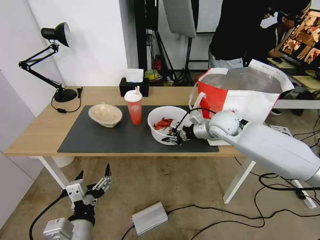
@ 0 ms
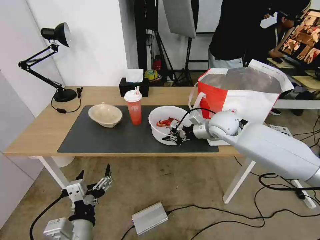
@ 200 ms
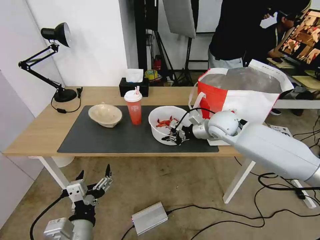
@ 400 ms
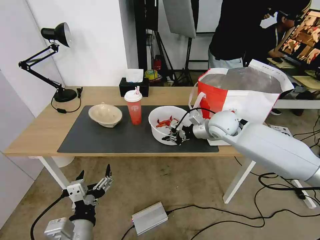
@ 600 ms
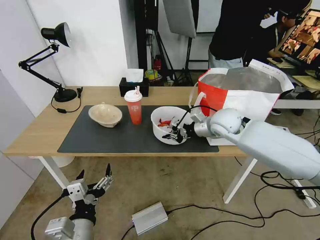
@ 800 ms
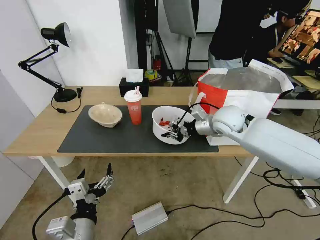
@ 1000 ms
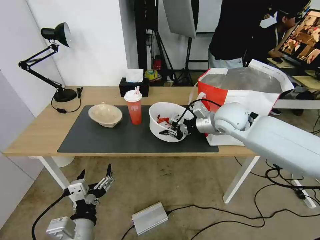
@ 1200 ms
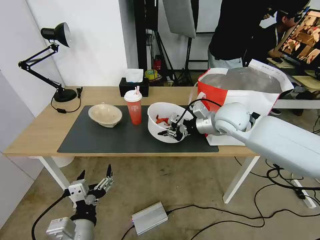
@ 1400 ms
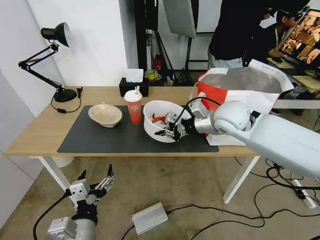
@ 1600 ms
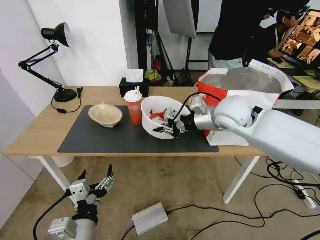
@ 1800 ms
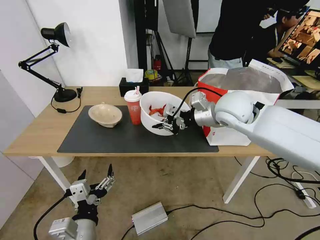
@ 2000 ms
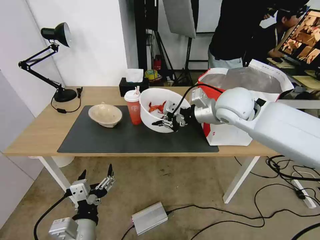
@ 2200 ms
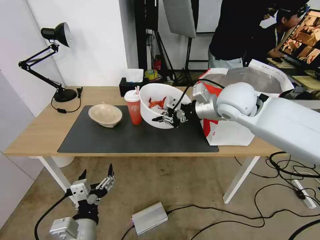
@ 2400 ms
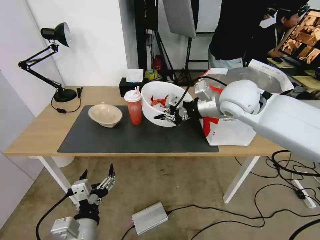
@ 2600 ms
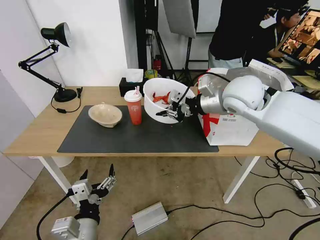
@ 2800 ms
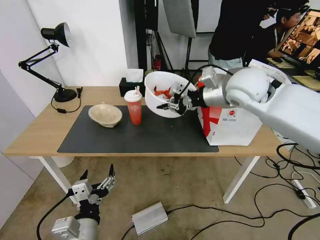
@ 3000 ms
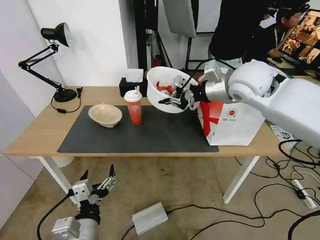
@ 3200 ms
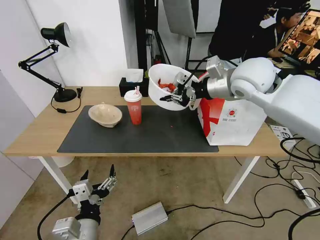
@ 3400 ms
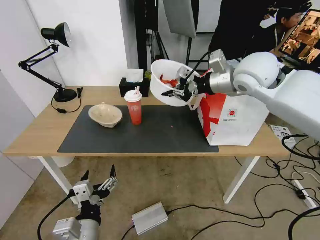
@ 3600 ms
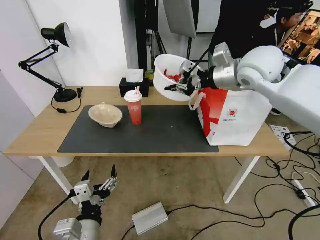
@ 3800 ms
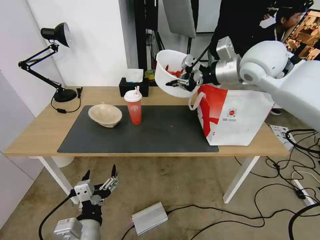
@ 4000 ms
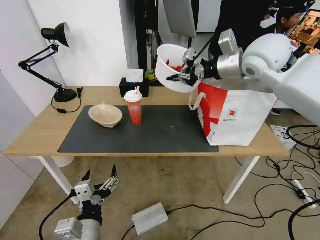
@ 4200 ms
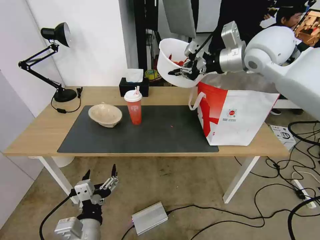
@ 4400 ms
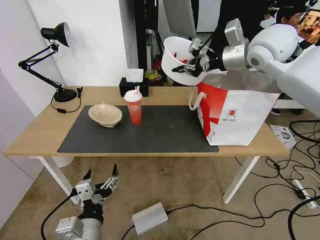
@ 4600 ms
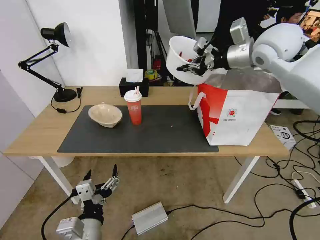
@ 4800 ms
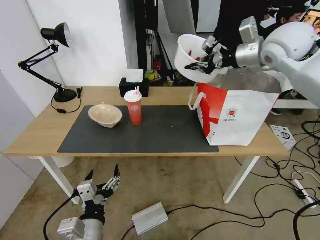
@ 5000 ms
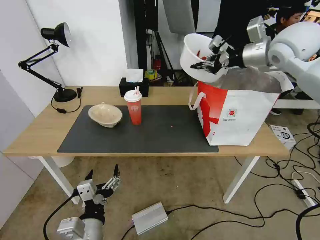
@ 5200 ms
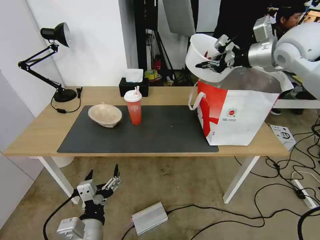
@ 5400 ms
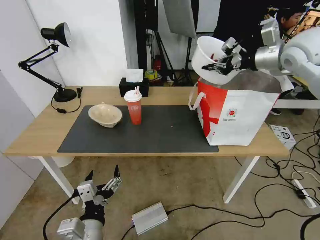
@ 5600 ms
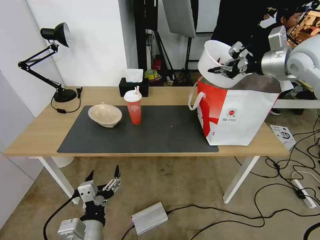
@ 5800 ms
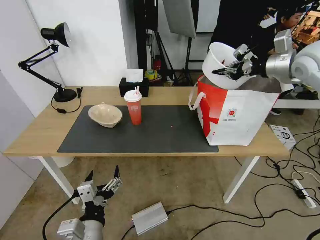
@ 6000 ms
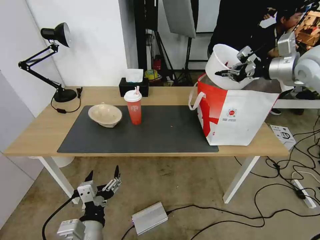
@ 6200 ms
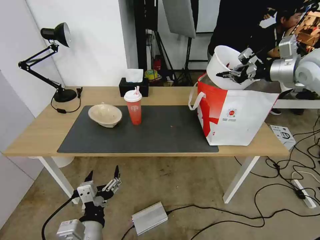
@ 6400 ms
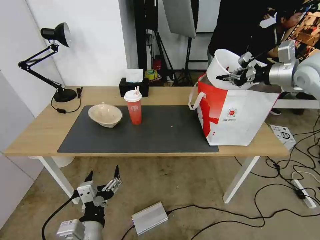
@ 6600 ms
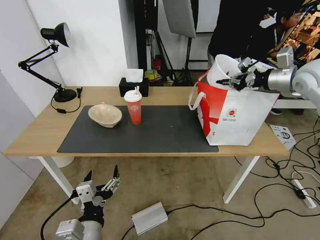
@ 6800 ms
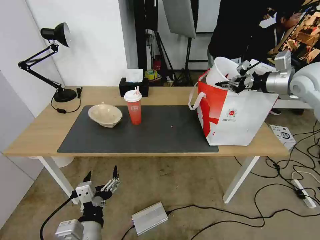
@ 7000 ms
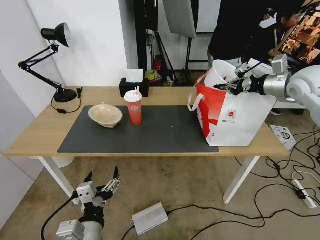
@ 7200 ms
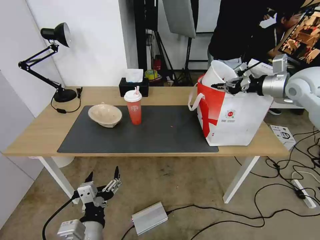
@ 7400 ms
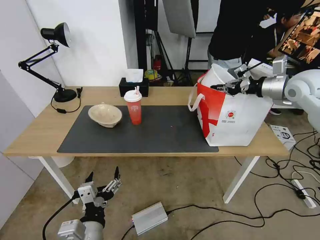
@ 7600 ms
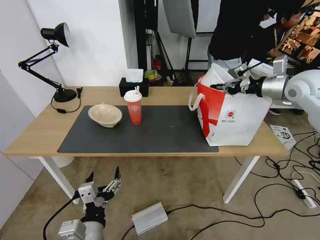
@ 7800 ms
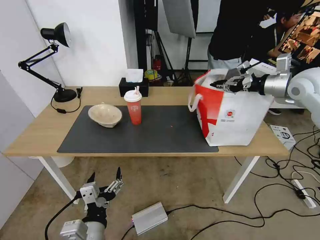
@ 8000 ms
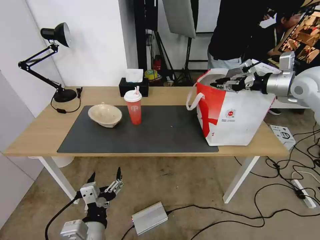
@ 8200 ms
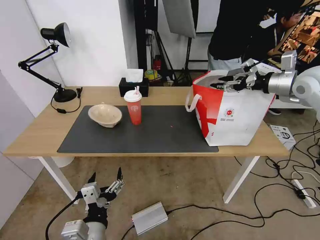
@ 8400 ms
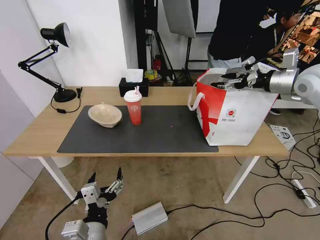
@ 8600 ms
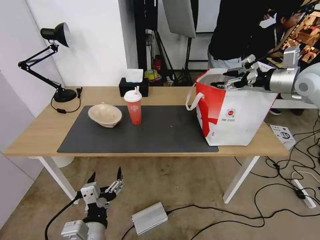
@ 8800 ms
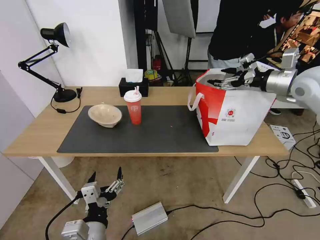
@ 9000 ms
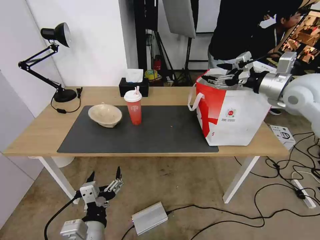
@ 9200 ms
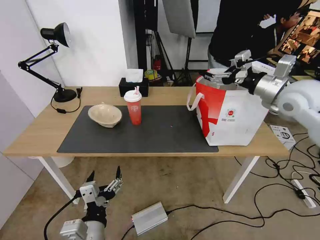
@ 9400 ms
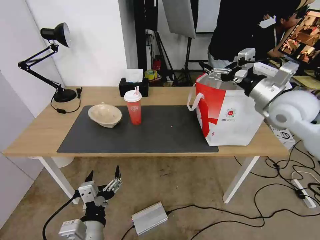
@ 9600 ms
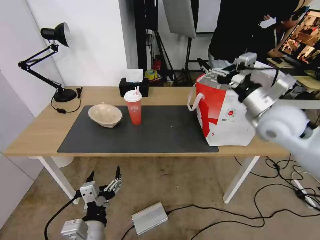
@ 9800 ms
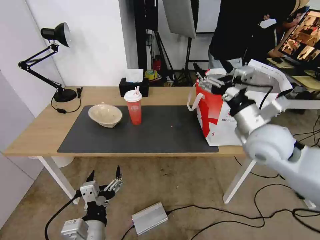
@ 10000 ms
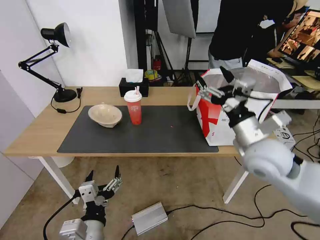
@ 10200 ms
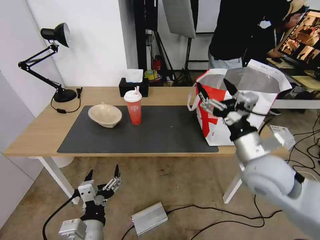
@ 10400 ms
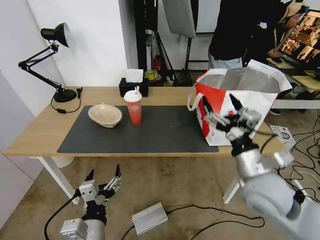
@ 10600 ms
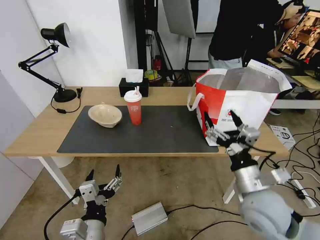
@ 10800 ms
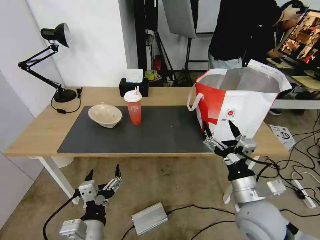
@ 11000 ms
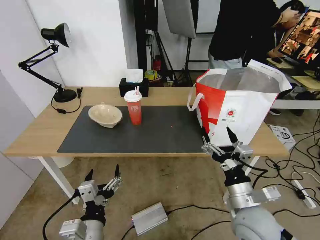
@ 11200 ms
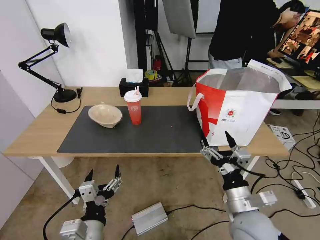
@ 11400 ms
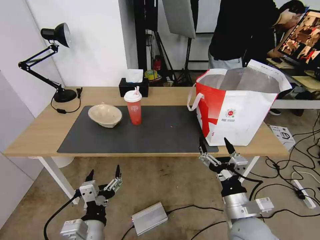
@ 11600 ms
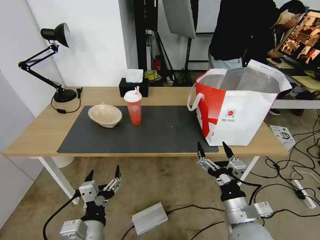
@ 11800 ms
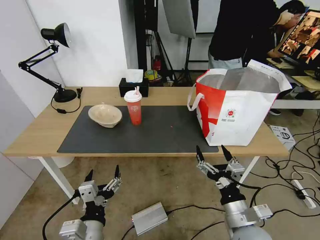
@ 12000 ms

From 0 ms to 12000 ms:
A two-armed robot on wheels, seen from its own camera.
Task of the whole recording: Pick up the trash from the table and place it into the takeout bag.
From 0 ms to 1600 ms: The right gripper moves upward, approximately 5 cm.
From 1600 ms to 3000 ms: The right gripper shifts about 10 cm upward.
From 3000 ms to 4400 ms: The right gripper is displaced upward by approximately 10 cm.
From 4400 ms to 6000 ms: The right gripper moves to the right, approximately 15 cm.
From 6000 ms to 7600 ms: The right gripper goes roughly 5 cm downward.
From 7600 ms to 9000 ms: The right gripper opens its fingers.
From 9000 ms to 10400 ms: The right gripper moves backward, to the left and downward, approximately 30 cm.
From 10400 ms to 12000 ms: The right gripper is displaced downward and backward by approximately 20 cm.

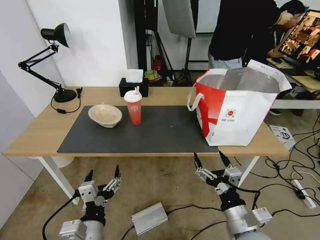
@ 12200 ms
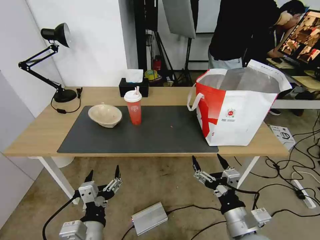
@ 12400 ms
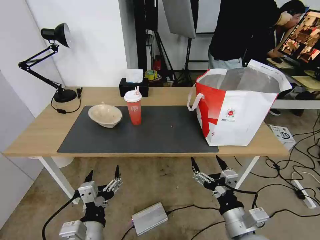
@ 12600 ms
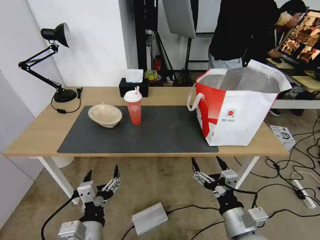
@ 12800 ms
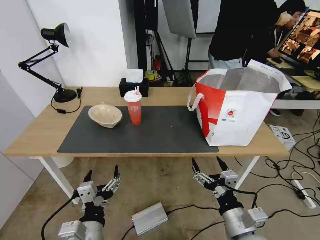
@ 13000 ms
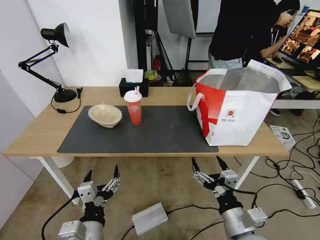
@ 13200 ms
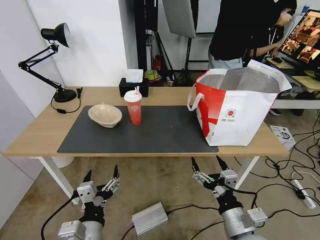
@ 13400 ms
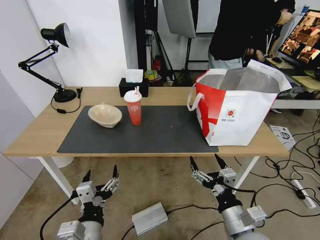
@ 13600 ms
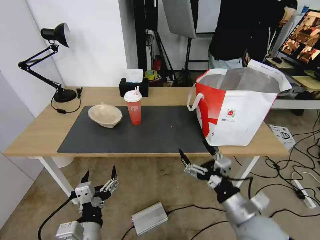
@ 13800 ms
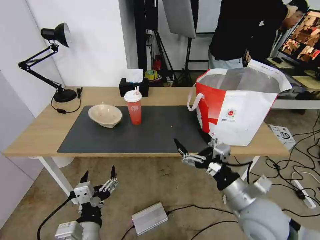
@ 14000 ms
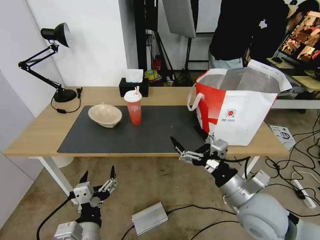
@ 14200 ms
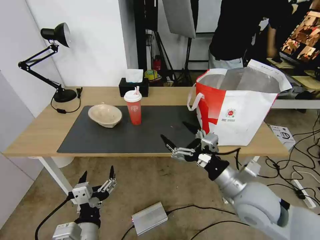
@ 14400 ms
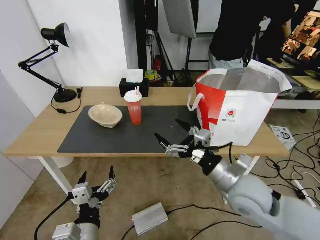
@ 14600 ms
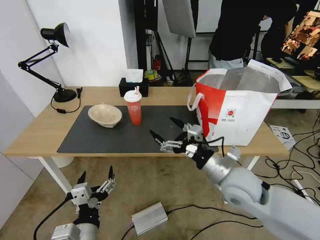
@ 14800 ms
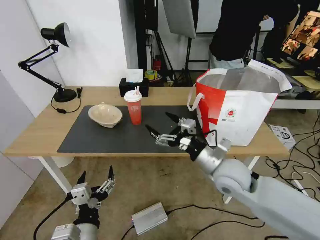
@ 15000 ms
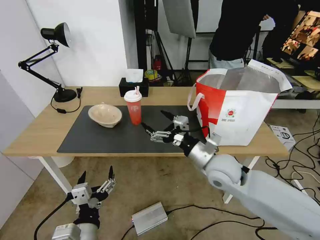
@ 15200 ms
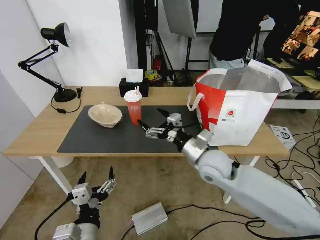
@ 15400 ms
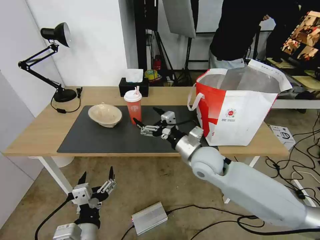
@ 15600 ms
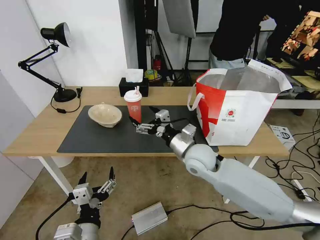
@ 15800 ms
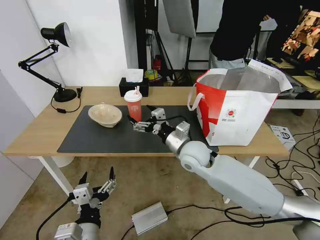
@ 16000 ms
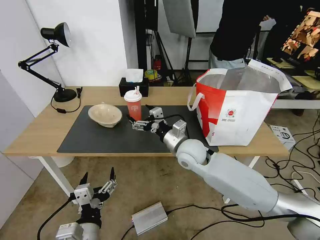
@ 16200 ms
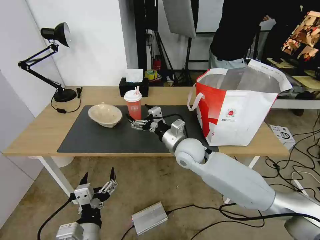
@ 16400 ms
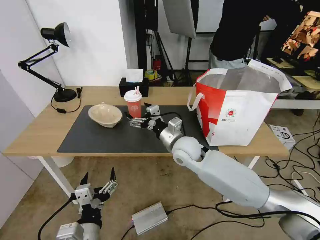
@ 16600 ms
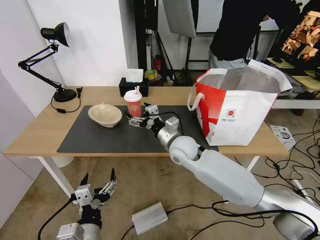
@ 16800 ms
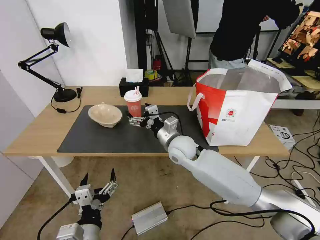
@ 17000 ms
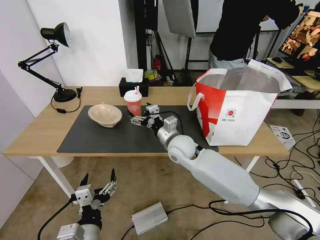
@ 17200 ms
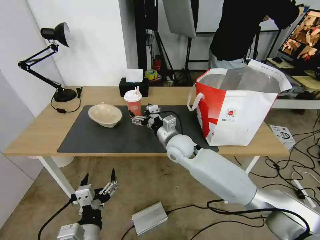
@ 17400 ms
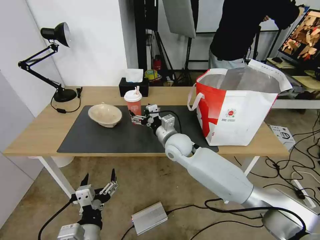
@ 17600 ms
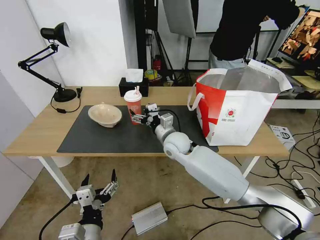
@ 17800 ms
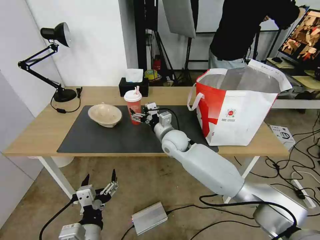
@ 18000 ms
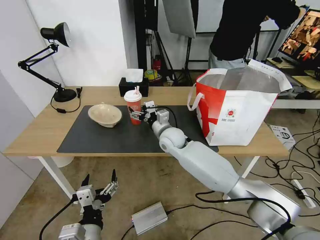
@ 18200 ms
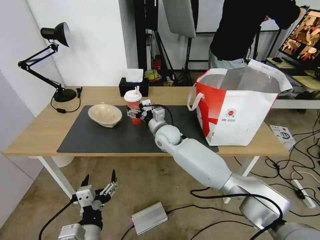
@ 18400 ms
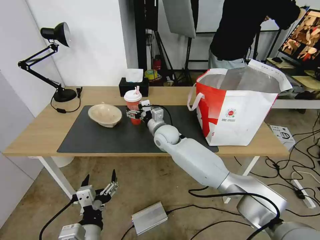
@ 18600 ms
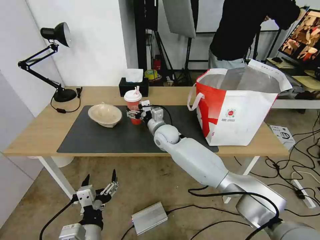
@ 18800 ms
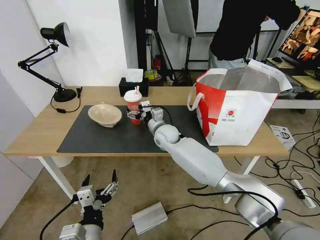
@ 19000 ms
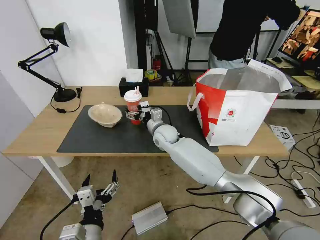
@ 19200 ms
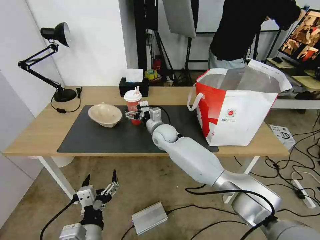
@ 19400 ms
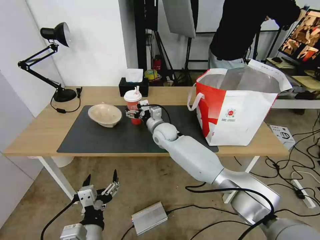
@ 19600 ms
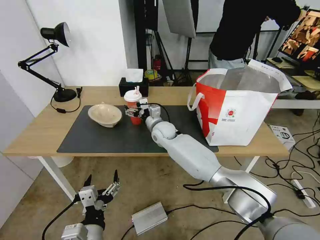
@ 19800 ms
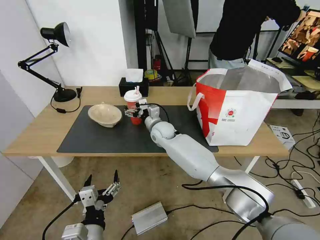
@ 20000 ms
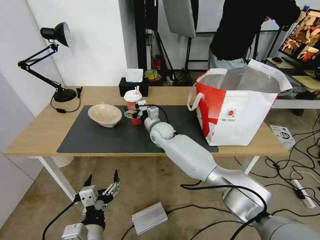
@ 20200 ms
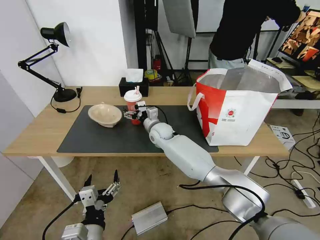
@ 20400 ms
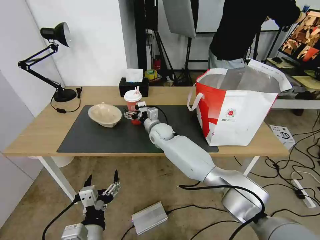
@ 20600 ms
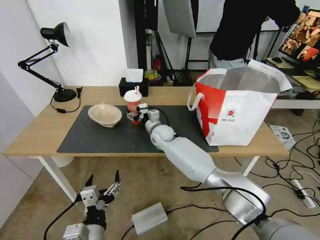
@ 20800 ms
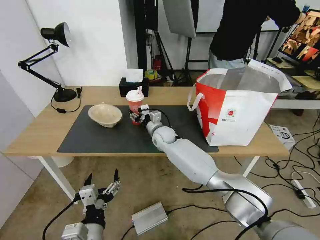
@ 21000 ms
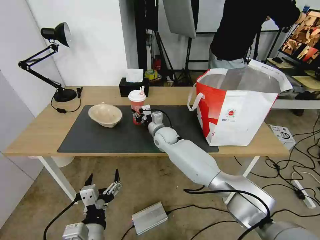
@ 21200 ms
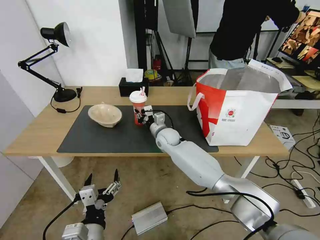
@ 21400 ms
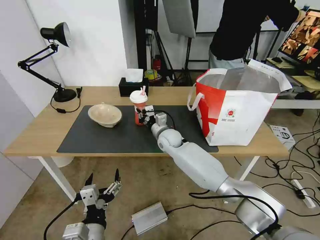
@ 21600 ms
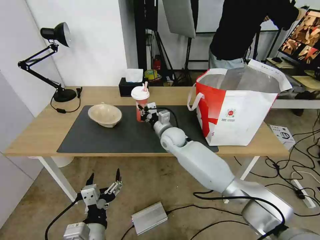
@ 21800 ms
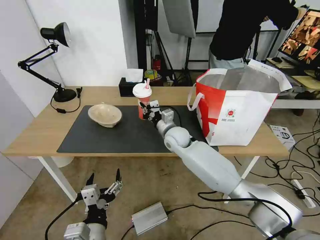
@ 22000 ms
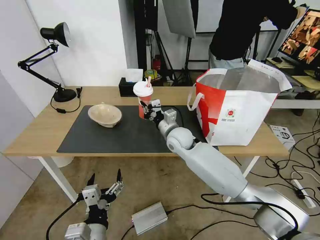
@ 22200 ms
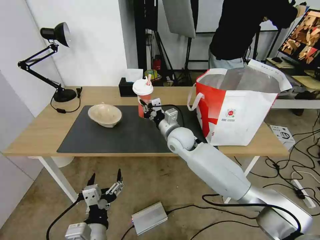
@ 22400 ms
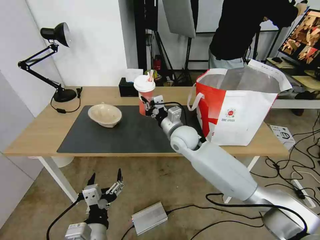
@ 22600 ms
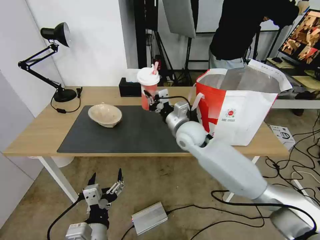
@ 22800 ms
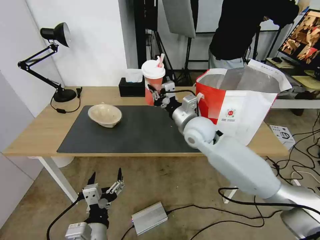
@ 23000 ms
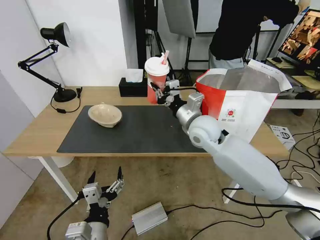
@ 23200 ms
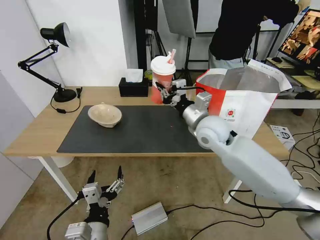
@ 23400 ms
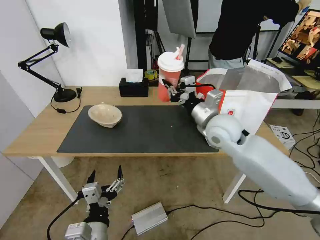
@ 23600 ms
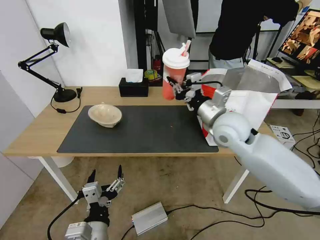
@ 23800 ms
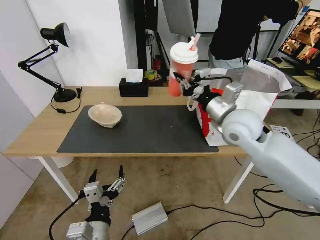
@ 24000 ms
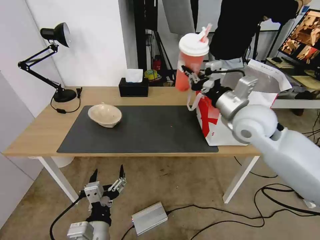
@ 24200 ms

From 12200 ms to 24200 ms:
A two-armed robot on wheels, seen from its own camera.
Task of the whole recording: Pick up the trash from the table and place it into the takeout bag.
From 12200 ms to 13800 ms: The grippers stay close to where they were, moving slightly.
From 13800 ms to 15200 ms: The right gripper goes some 15 cm forward.
From 15200 ms to 16600 ms: The right gripper moves to the left and forward, roughly 10 cm.
From 16600 ms to 18200 ms: The right gripper is displaced forward by approximately 5 cm.
From 18200 ms to 19800 ms: The right gripper shifts about 5 cm forward.
From 19800 ms to 21200 ms: The right gripper closes.
From 21200 ms to 22600 ms: The right gripper goes roughly 15 cm upward, backward and to the right.
From 22600 ms to 24200 ms: The right gripper heads to the right, upward and backward, covering approximately 20 cm.
